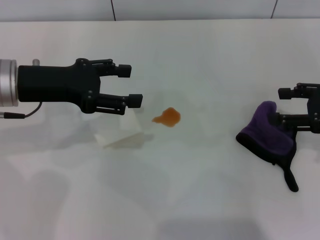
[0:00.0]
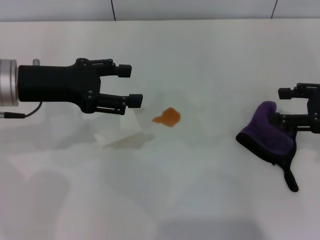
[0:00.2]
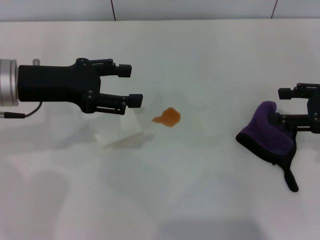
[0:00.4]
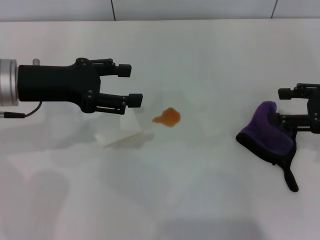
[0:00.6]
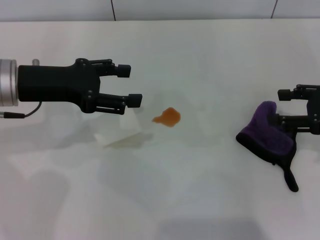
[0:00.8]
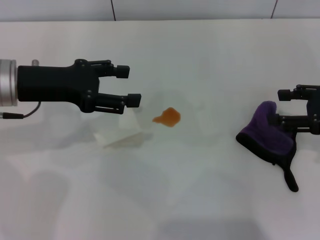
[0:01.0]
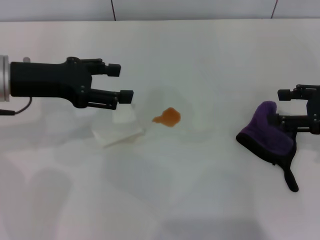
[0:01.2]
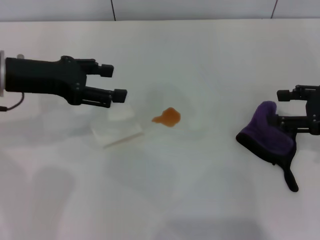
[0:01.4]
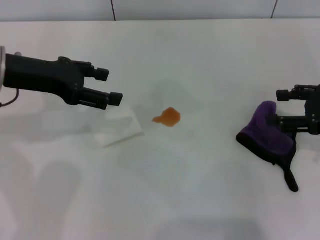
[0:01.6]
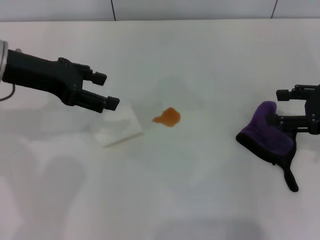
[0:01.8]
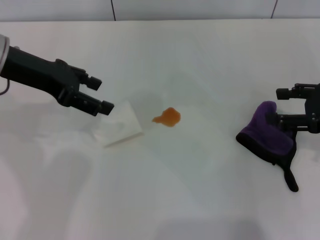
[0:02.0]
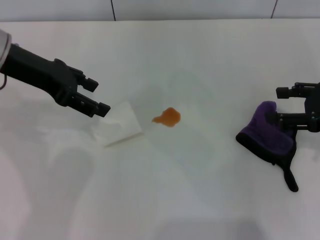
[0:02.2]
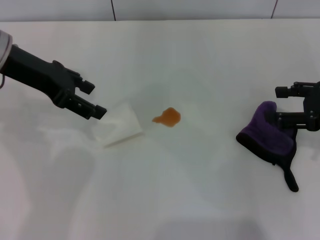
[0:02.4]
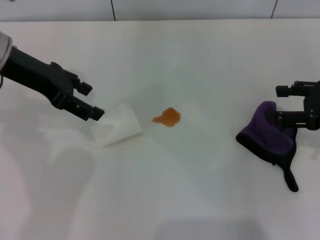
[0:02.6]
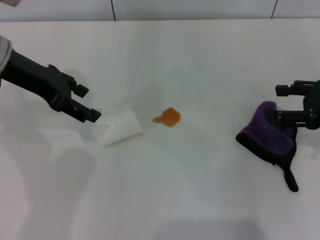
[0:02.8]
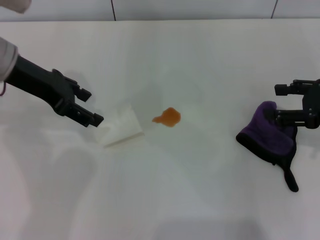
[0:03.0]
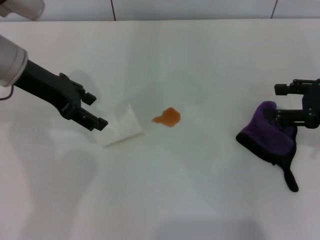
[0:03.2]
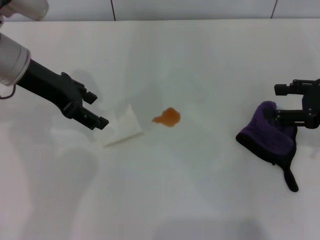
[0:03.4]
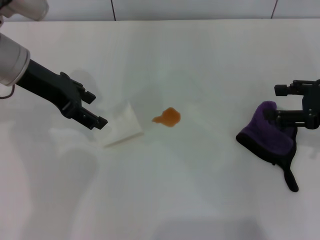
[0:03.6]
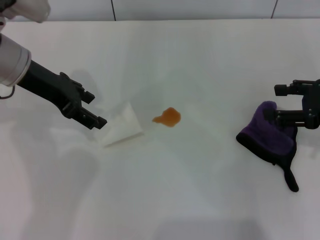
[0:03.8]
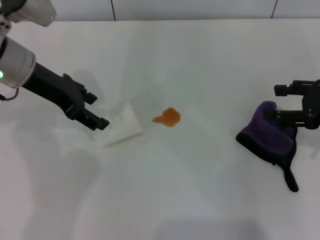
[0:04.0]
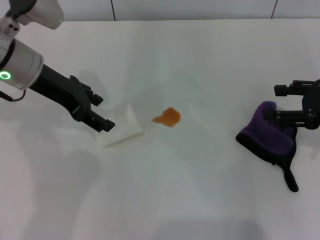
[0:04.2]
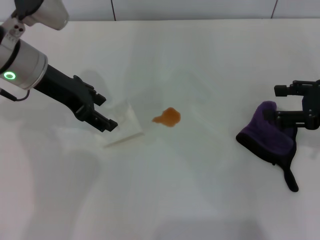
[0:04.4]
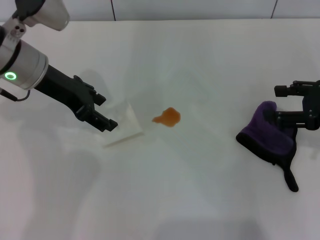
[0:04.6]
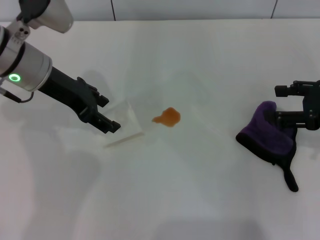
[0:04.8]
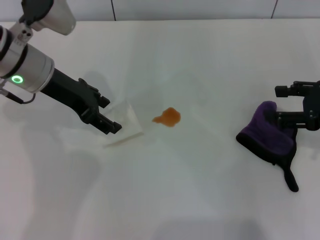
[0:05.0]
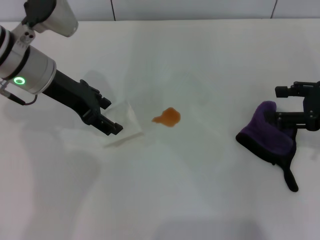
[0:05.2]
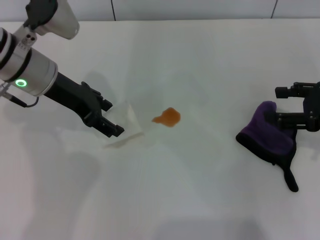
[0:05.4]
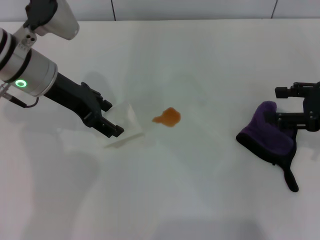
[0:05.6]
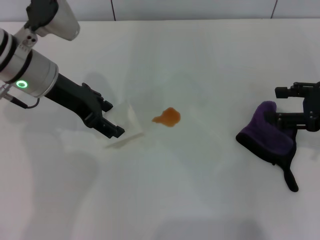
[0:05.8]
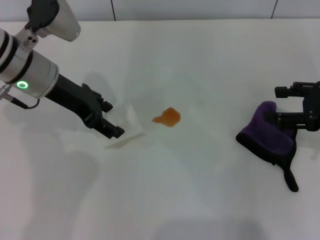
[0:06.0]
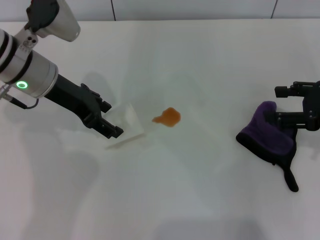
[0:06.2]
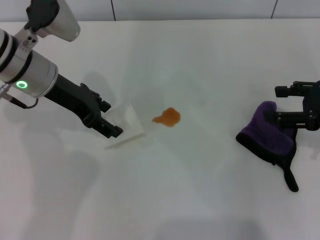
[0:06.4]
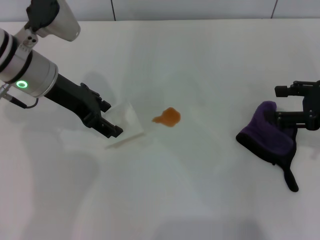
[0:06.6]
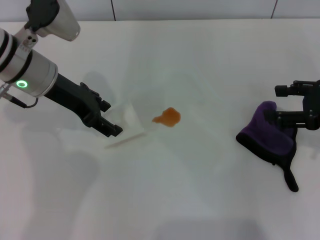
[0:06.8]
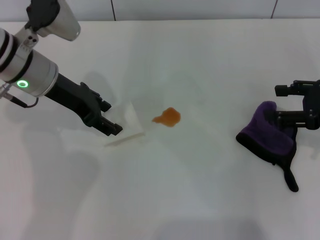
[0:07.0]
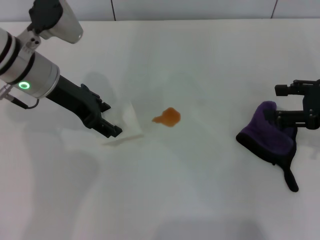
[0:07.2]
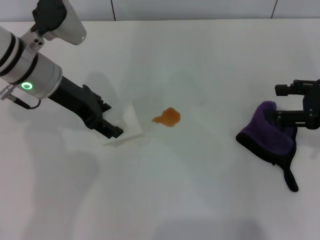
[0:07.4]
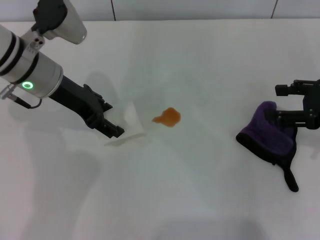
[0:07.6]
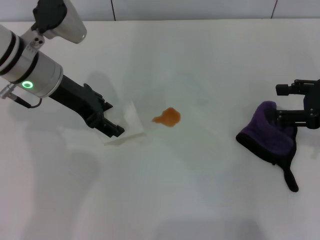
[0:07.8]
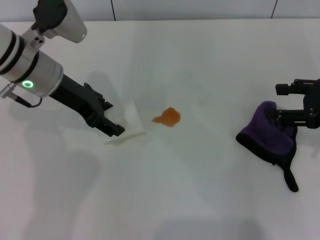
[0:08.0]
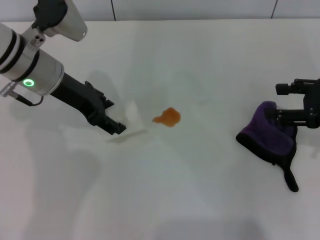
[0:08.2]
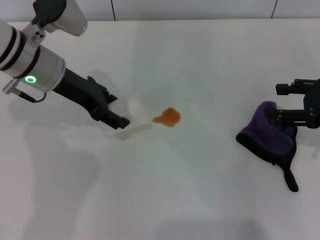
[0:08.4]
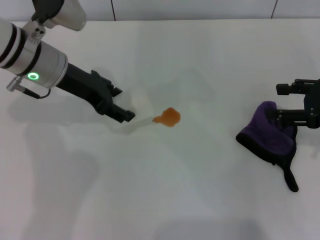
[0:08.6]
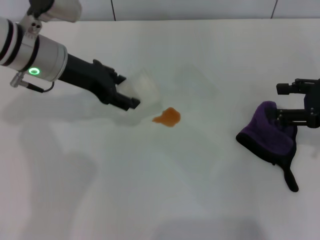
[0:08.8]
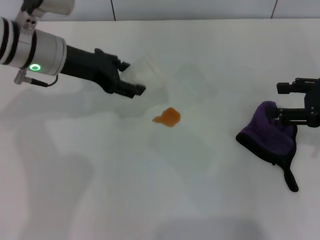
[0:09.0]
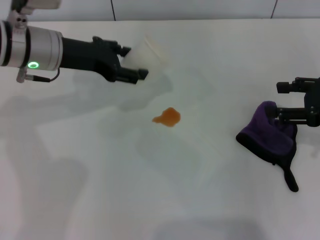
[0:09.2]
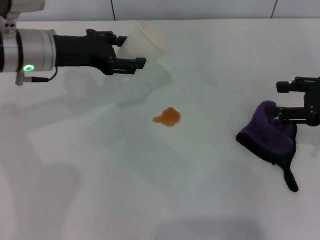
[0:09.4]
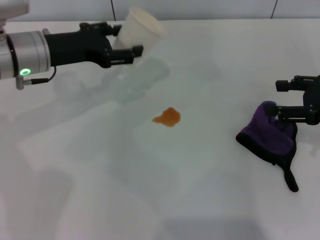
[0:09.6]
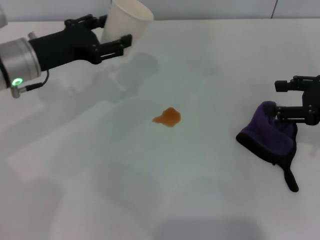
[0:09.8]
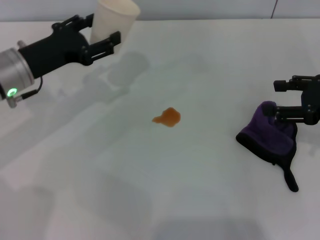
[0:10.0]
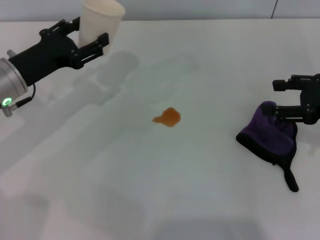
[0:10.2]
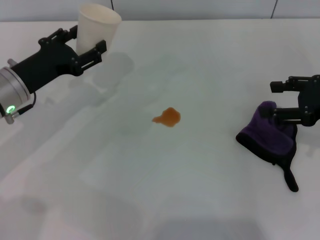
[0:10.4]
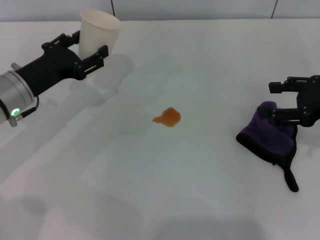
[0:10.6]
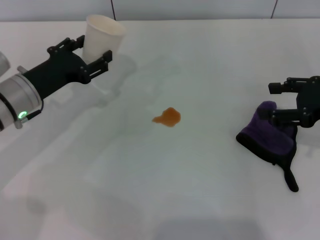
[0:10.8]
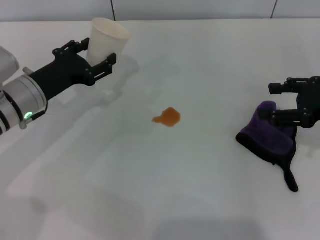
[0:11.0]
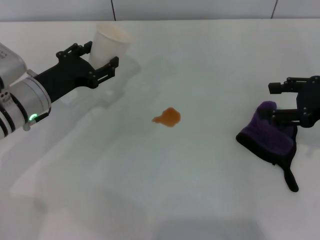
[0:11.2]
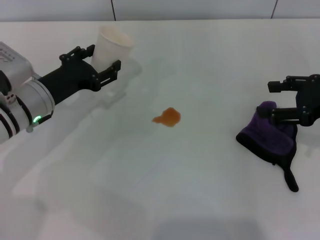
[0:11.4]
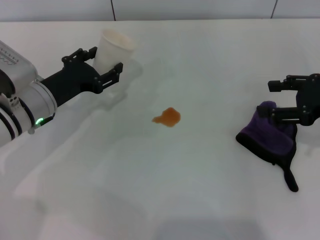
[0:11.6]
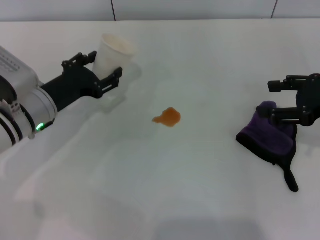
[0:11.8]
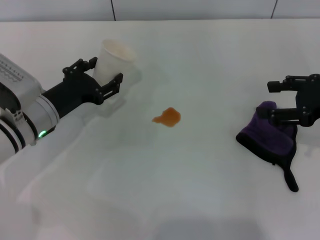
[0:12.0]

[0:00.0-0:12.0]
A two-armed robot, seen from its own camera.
Step, 0:00.0 to 0:07.4: Grasp the paper cup with the left gripper.
0:00.0 to 0:01.6: The grippers stay close to where they were, moving slightly.
0:03.0 to 0:06.0: The grippers move only a little.
0:06.0 to 0:07.6: Neither gripper changes place.
0:07.6 to 0:09.0: The grippers stay close to where they were, moving slightly.
0:09.0 to 0:10.4: The left gripper shifts about 10 cm downward, to the left and backward.
0:10.4 to 0:12.0: The left gripper ends up about 5 cm from where it was.

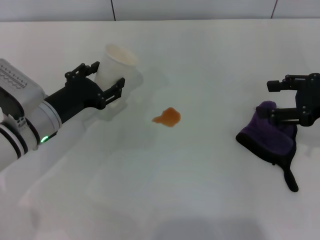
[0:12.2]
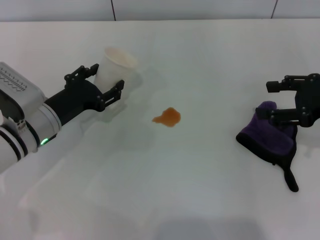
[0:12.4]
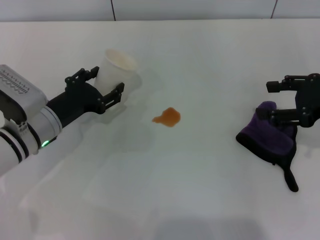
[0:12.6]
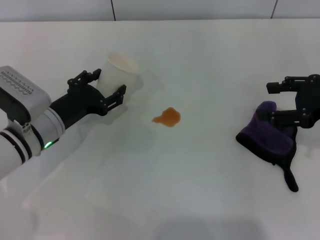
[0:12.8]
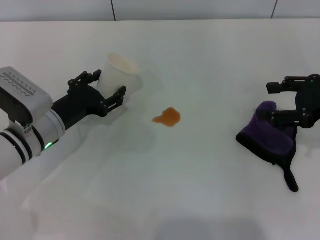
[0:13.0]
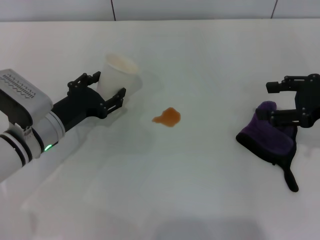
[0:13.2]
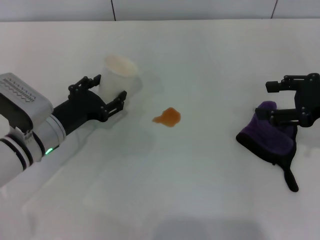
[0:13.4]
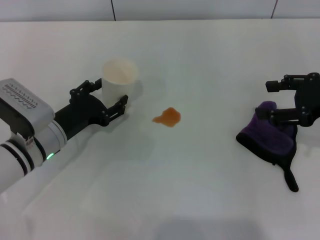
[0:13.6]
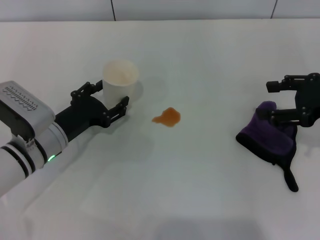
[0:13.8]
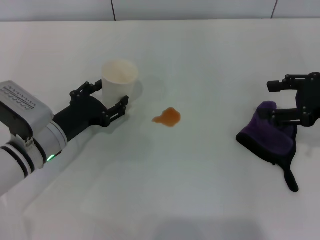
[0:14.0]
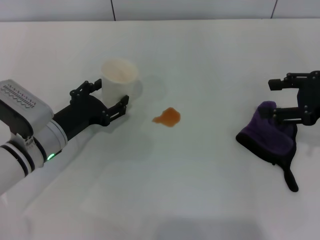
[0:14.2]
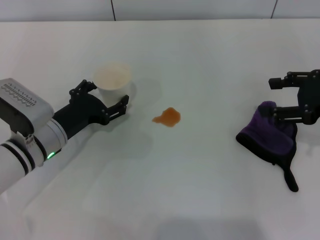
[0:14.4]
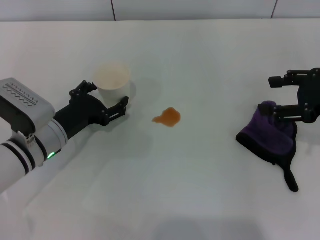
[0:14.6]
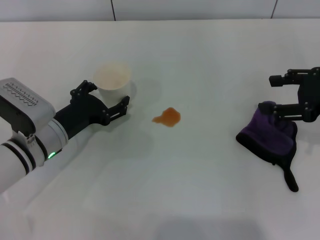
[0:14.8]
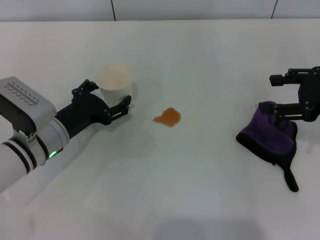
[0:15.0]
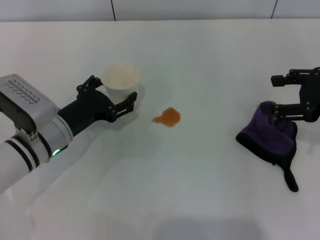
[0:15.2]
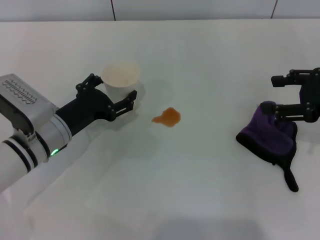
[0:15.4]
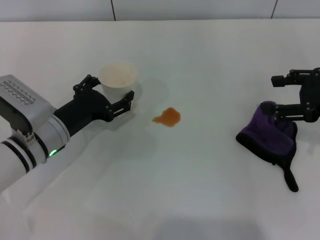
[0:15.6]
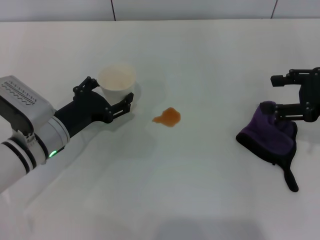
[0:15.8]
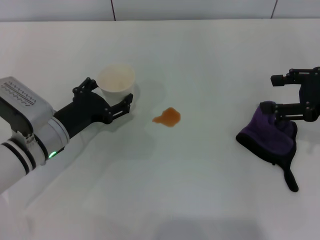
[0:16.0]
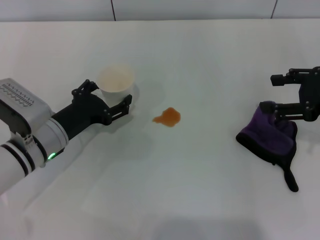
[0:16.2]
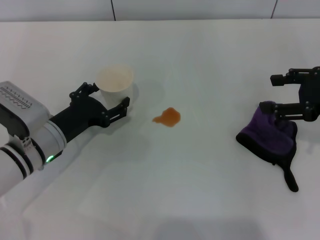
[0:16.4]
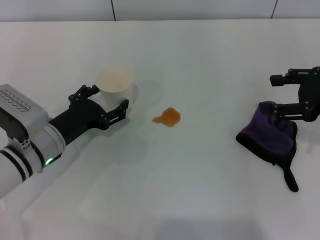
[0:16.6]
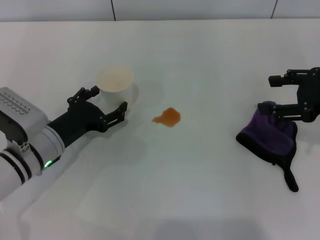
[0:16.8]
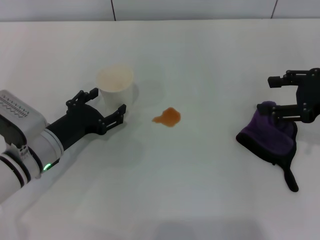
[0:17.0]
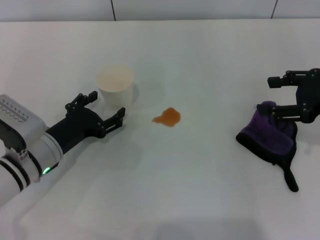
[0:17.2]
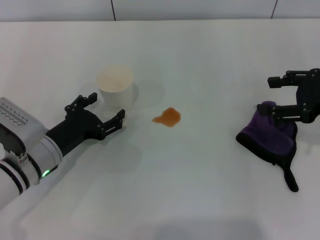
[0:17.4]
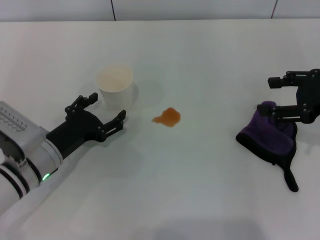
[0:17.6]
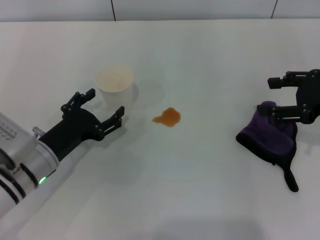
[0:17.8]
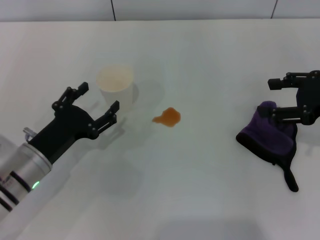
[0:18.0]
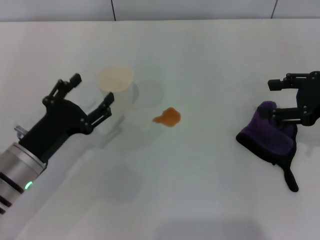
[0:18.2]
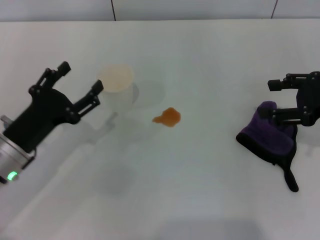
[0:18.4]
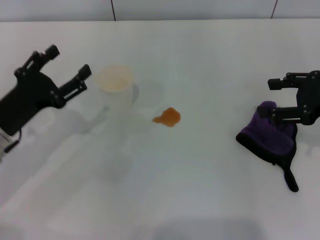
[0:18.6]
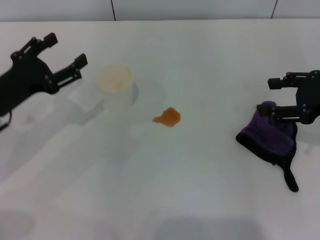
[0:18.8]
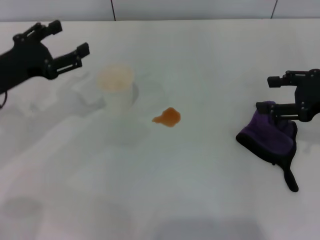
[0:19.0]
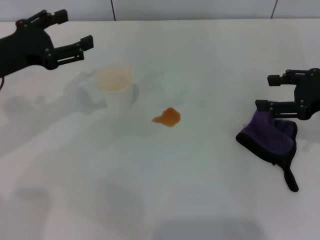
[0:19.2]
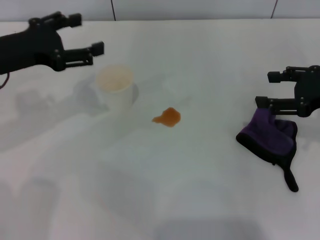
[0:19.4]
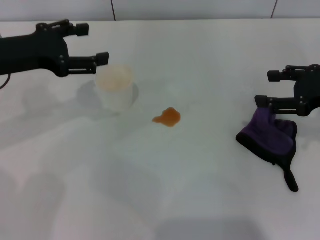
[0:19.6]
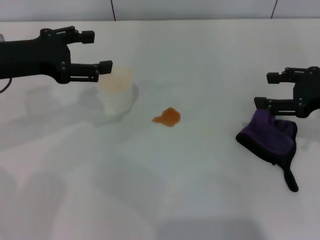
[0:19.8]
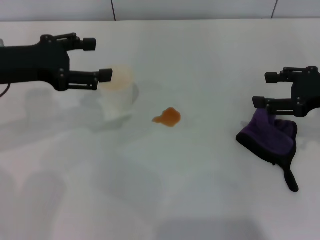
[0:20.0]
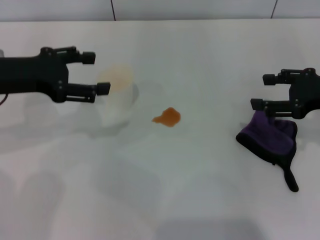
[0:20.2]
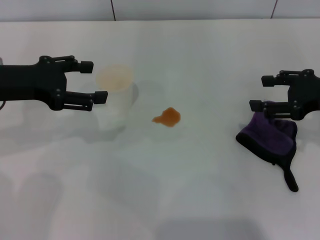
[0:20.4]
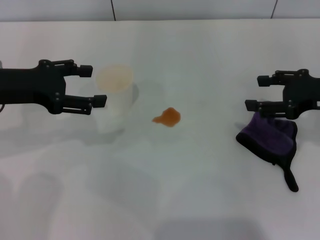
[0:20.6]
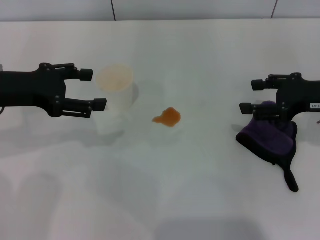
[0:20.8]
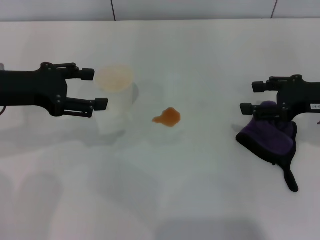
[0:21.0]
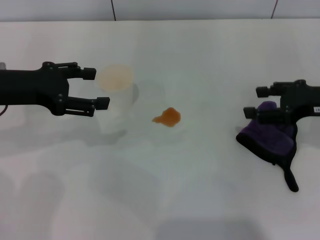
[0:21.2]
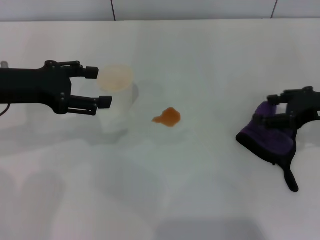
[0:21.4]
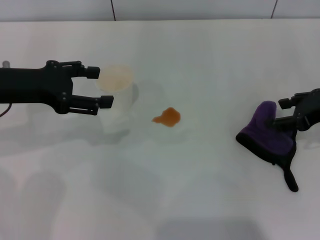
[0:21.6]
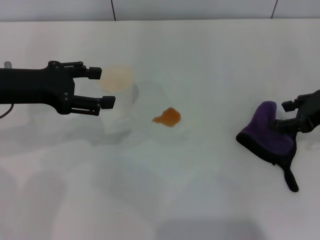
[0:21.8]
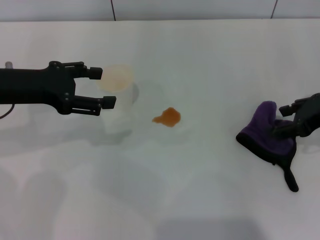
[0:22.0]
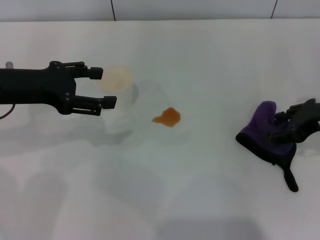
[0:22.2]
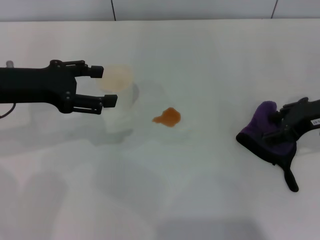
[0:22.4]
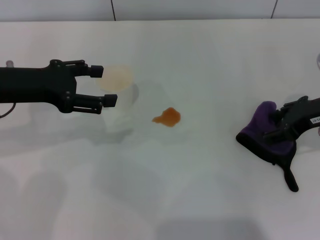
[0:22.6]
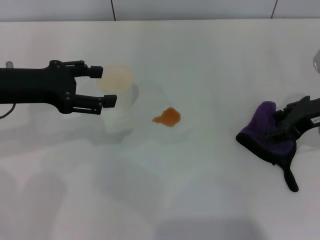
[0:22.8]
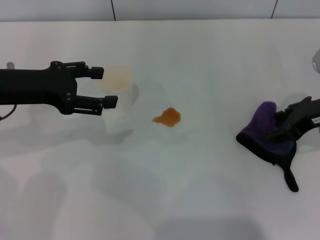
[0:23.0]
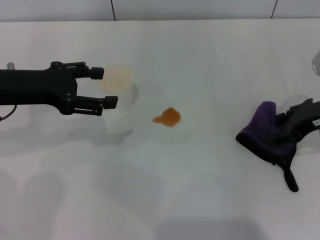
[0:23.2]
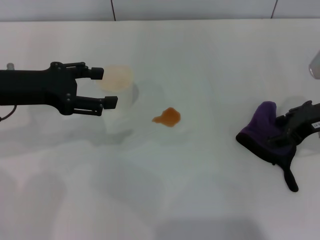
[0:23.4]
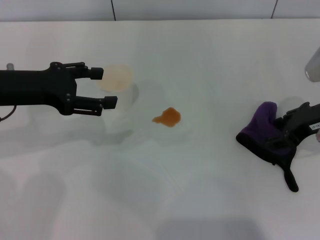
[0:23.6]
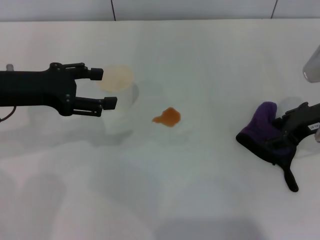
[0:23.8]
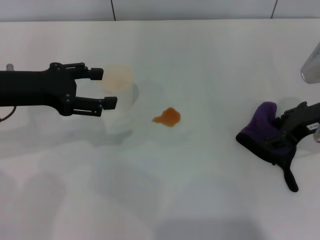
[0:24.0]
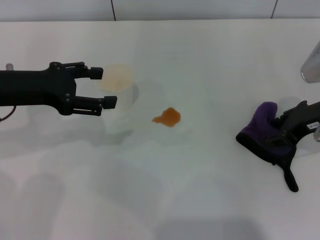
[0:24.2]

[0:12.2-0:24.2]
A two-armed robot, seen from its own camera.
Step, 0:12.2 to 0:17.4: Stand the paper cup upright with the left gripper.
0:12.2 to 0:13.8: There are only small adjustments of the grippers.
0:13.8 to 0:15.2: The two grippers keep their place.
0:15.2 to 0:16.6: The grippers stay close to where they were, moving slightly.
0:16.6 to 0:18.2: The left gripper travels backward by about 5 cm.
0:18.2 to 0:19.8: The left gripper moves upward and forward, some 20 cm.
0:19.8 to 0:21.2: There are only small adjustments of the grippers.
0:22.6 to 0:24.2: The grippers move only a little.
